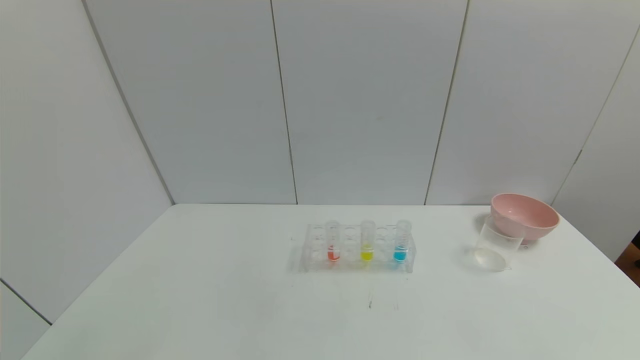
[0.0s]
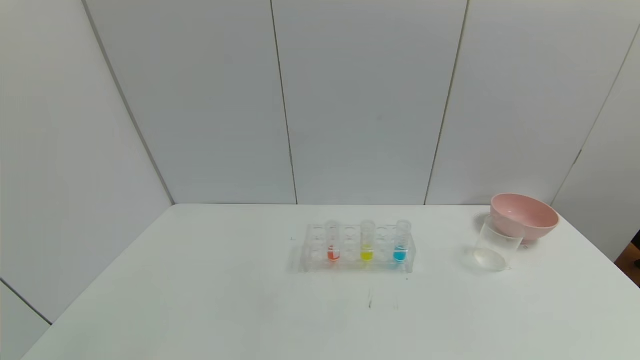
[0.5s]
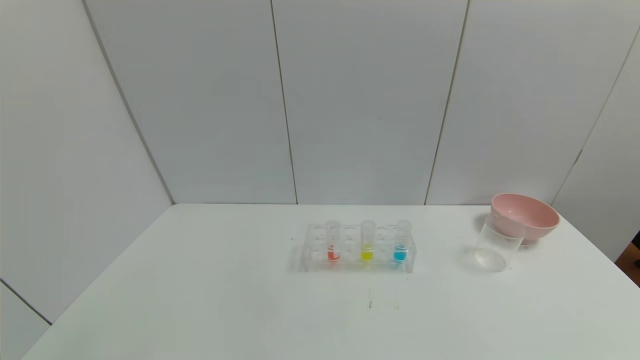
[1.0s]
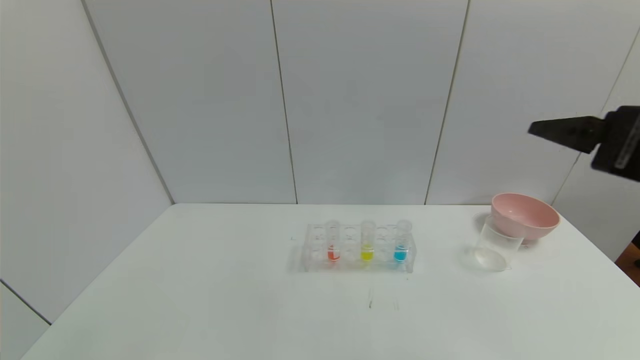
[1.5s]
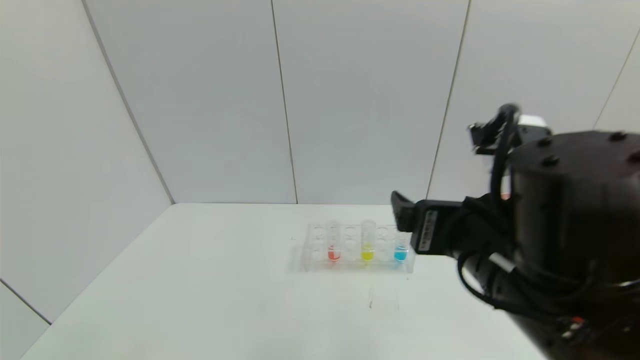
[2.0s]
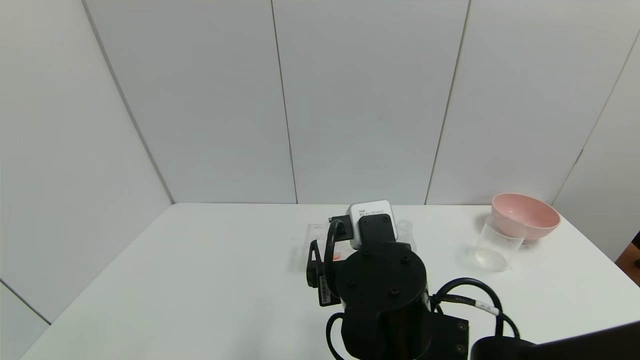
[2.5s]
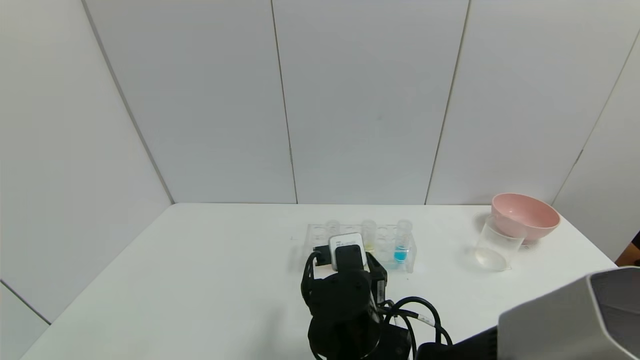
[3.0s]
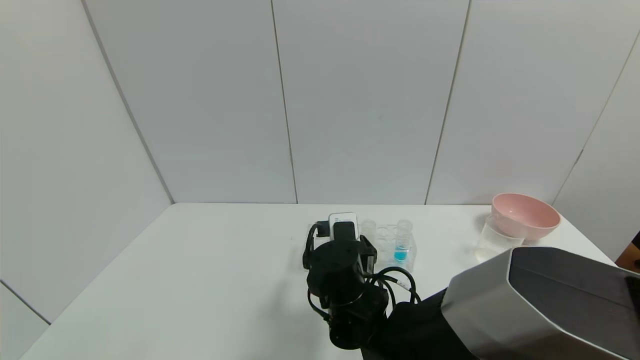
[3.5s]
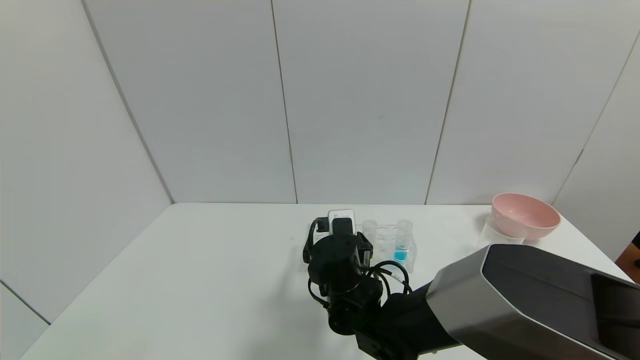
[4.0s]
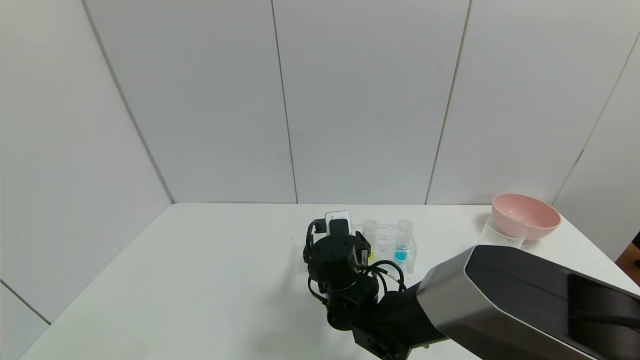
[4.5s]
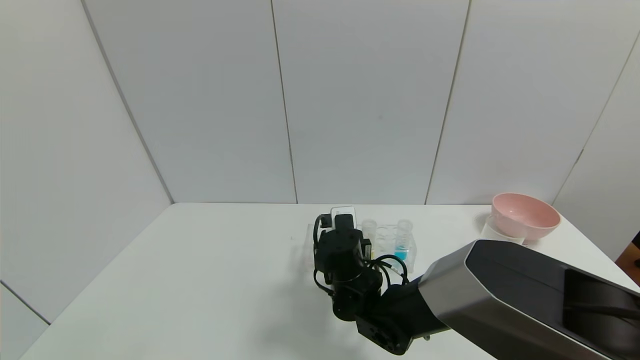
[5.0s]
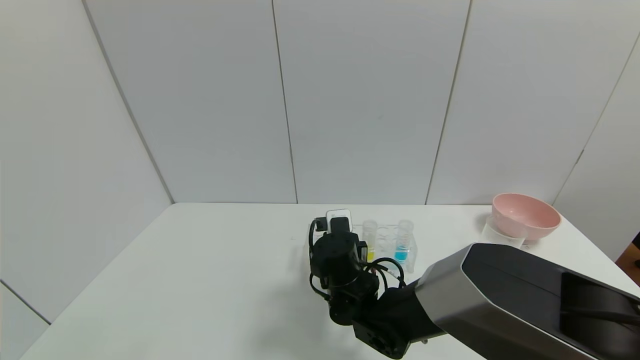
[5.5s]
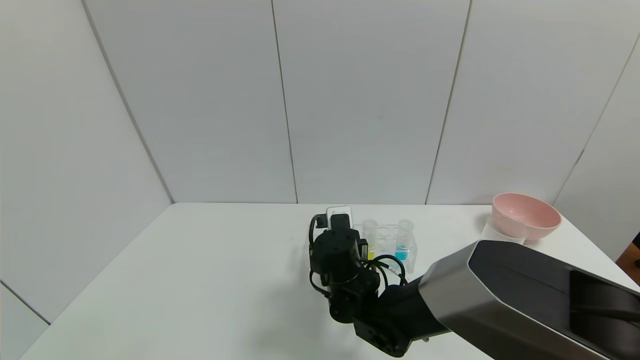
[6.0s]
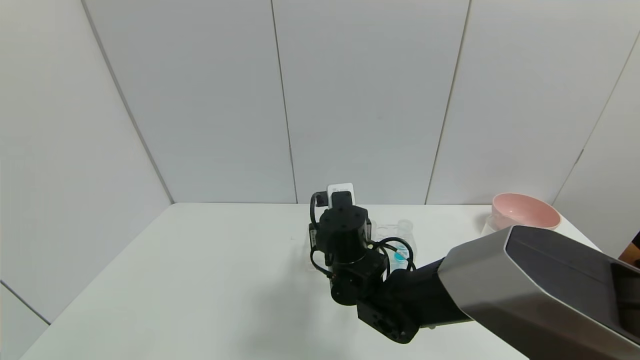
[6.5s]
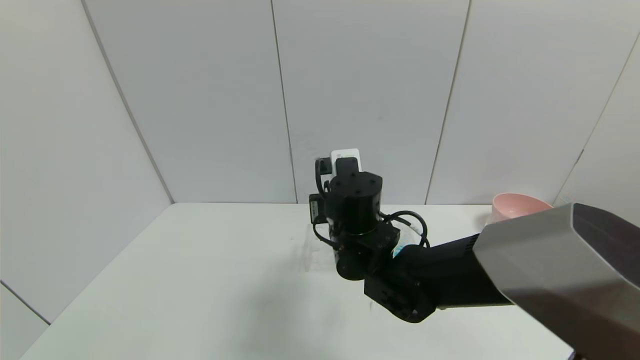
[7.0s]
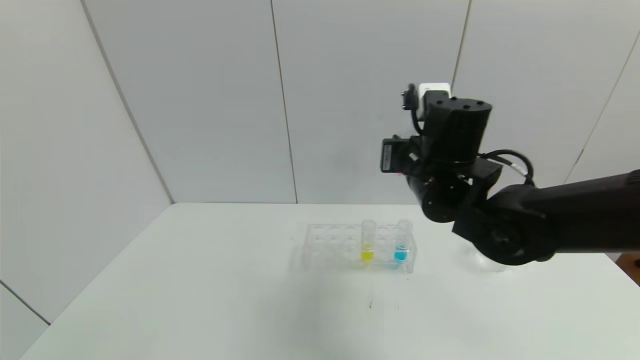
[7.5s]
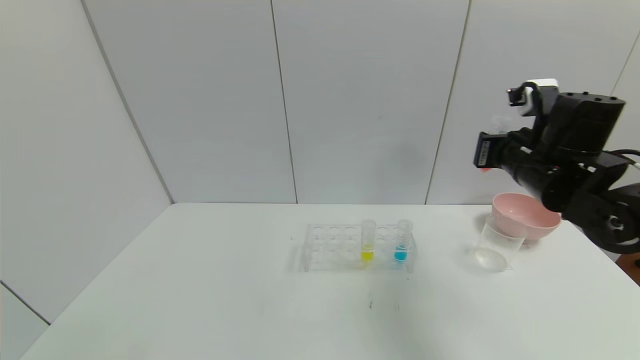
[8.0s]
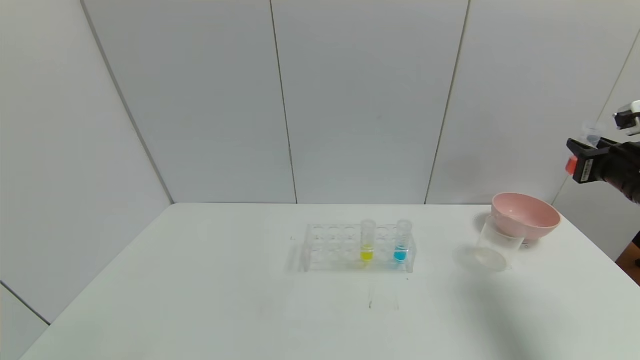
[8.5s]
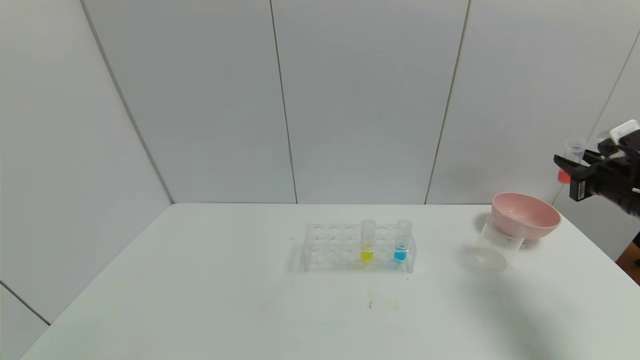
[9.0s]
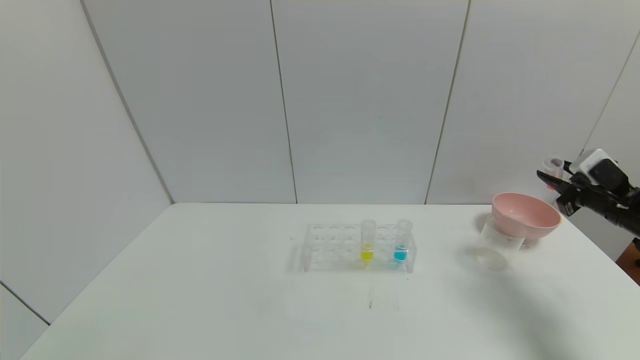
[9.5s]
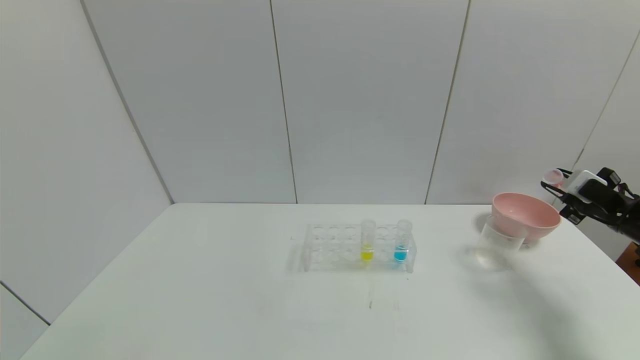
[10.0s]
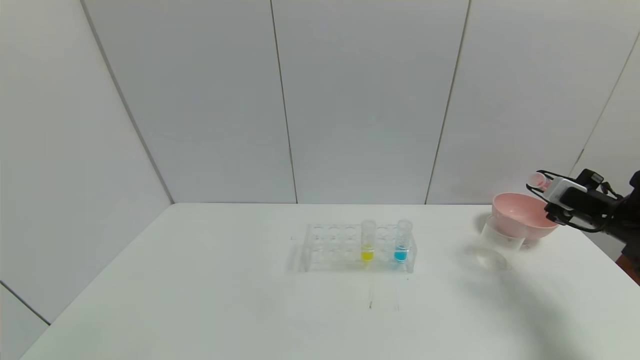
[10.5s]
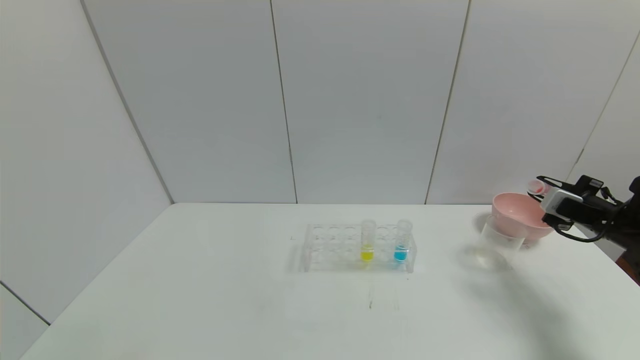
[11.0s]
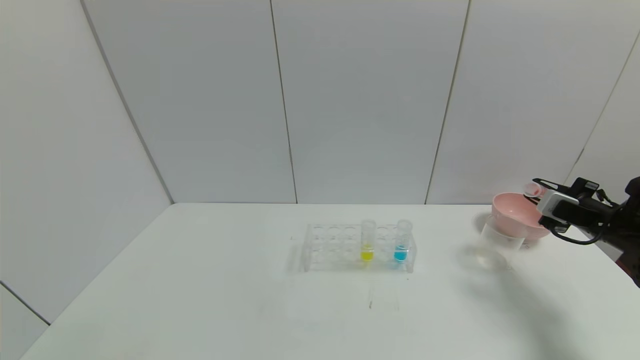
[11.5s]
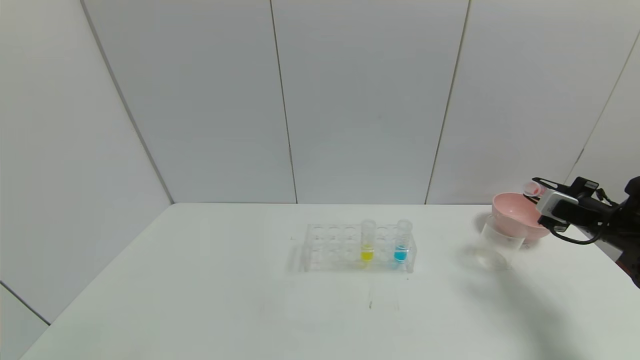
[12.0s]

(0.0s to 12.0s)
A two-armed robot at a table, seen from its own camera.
Task of the whole recording: pick up the test tube with yellow pigment and the test tube with red pigment by grippers and pour them into the beaker.
Step, 0.0s - 7.5s: Pick up the test tube containing the red reagent with right gripper.
0.0s - 2.0s: The right gripper goes roughly 35 cm to the left, forward and upward.
2.0s - 4.0s: The right gripper moves downward, forward and to the left, approximately 25 cm.
4.0s - 6.0s: The right gripper closes.
6.0s - 8.0s: The right gripper shifts about 30 cm to the right and upward.
8.0s - 10.0s: The right gripper moves to the right and downward, some 20 cm.
10.0s - 12.0s: The grippers stay close to where they were, moving slightly.

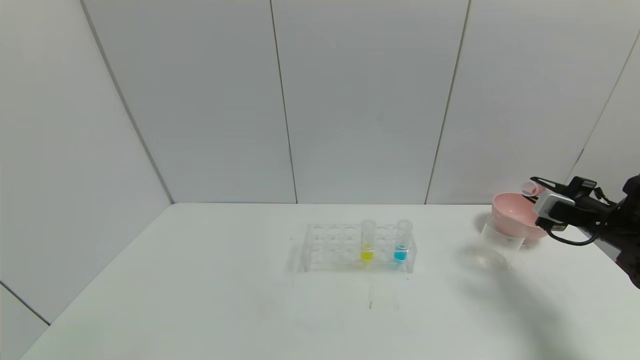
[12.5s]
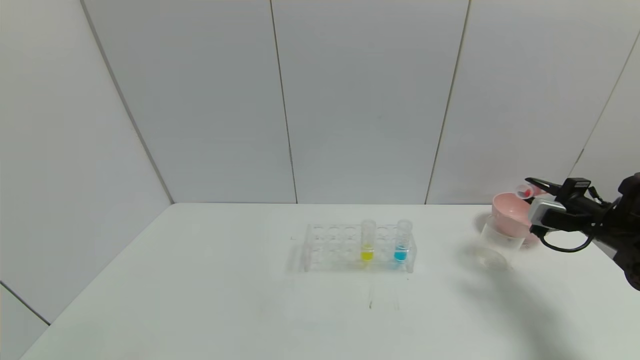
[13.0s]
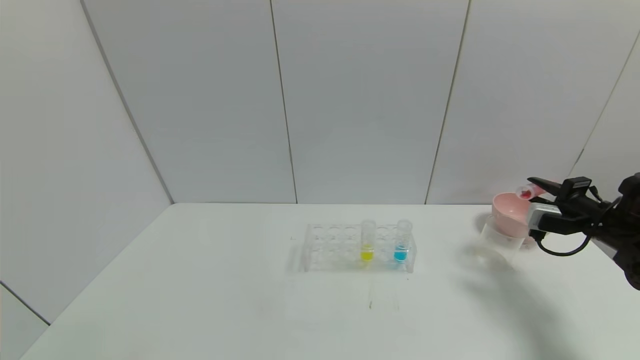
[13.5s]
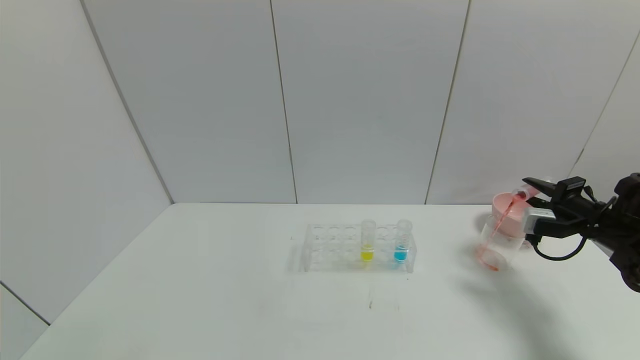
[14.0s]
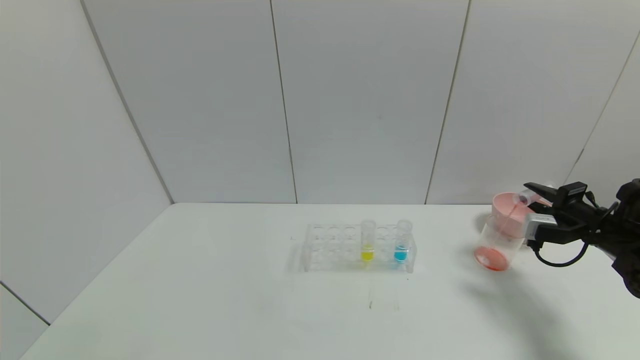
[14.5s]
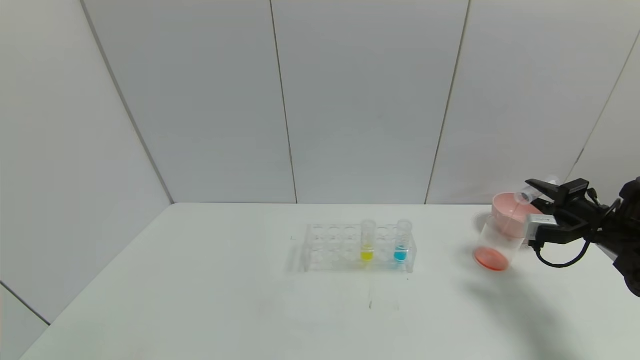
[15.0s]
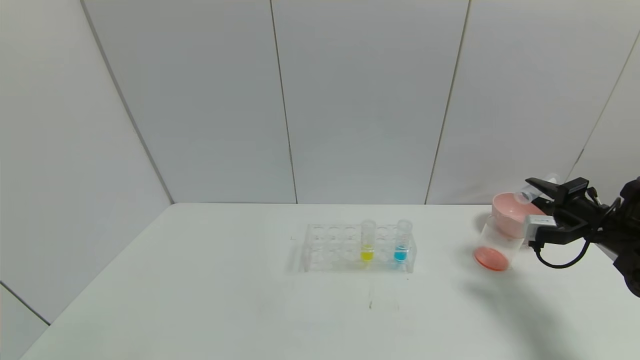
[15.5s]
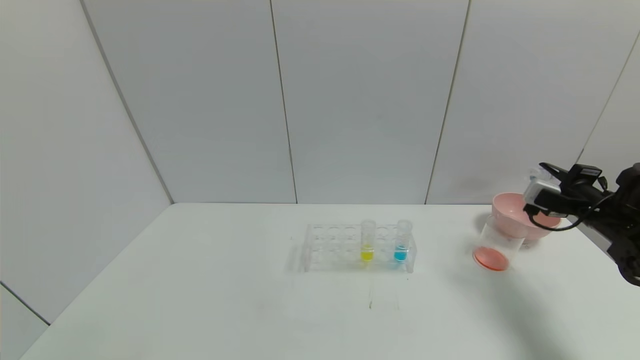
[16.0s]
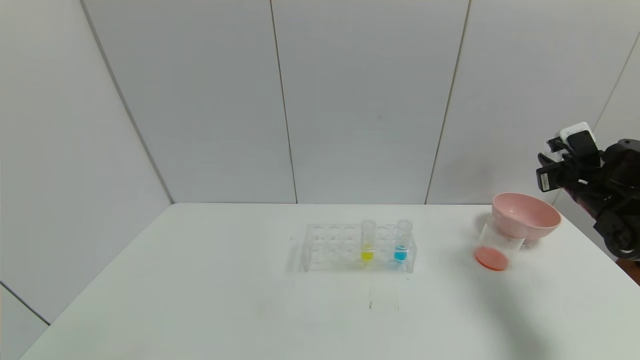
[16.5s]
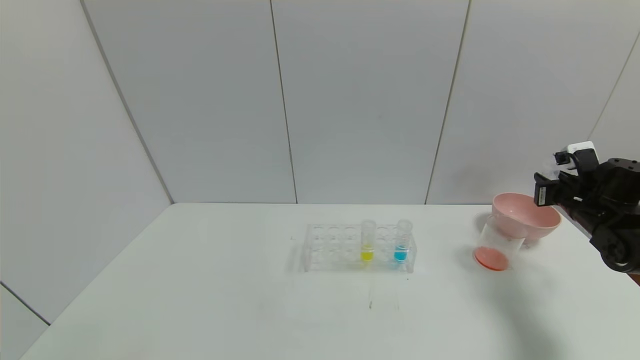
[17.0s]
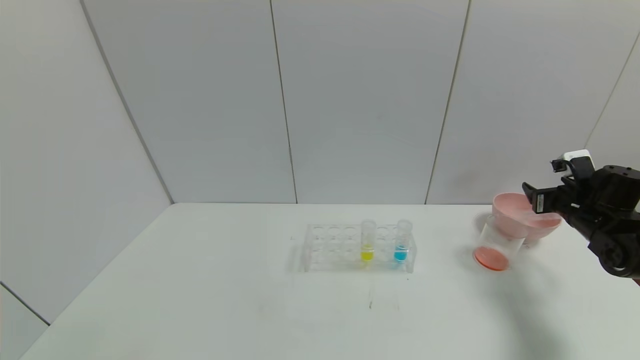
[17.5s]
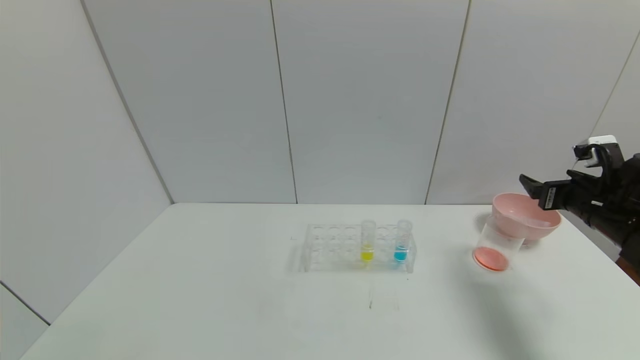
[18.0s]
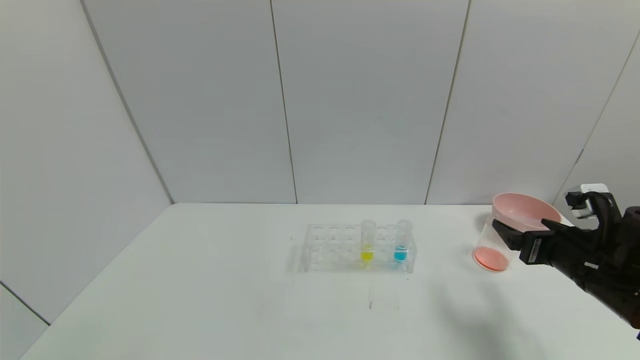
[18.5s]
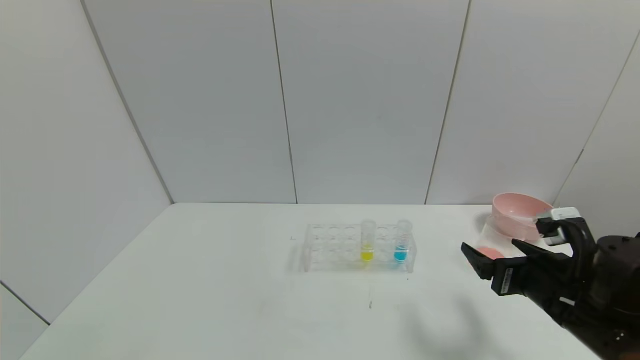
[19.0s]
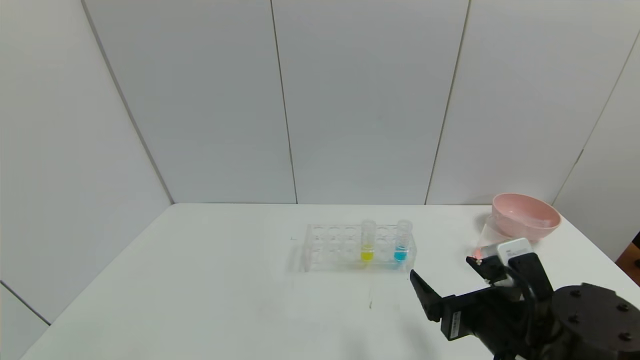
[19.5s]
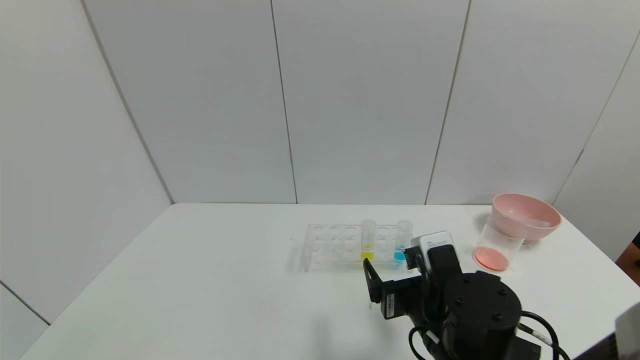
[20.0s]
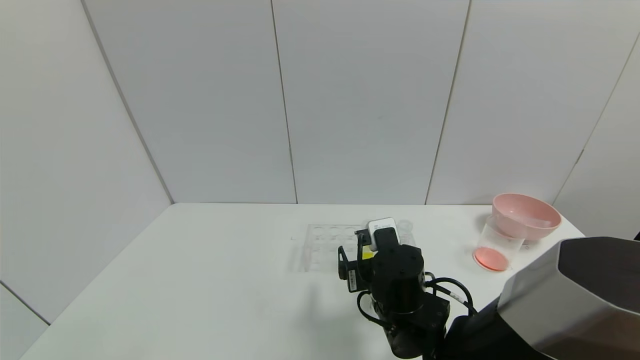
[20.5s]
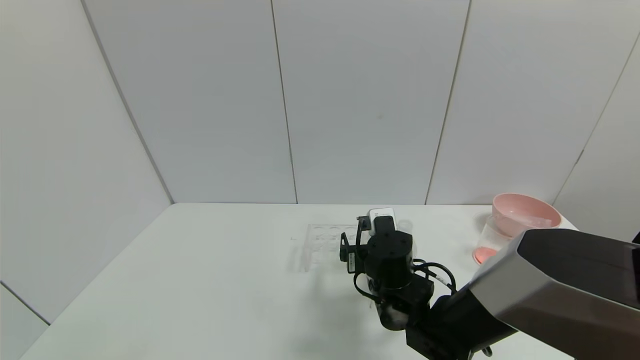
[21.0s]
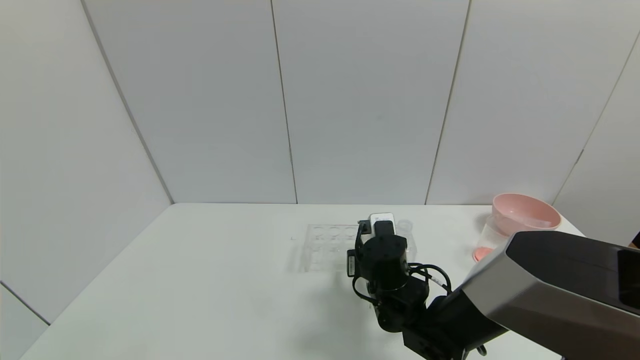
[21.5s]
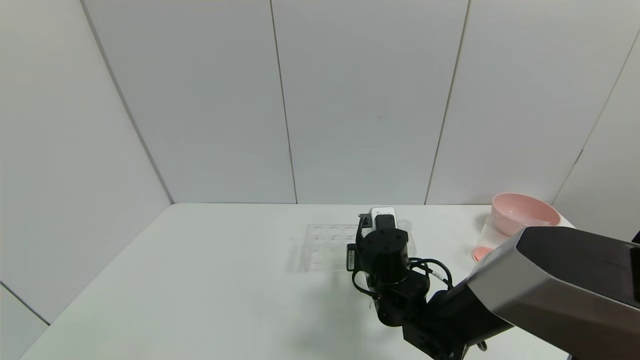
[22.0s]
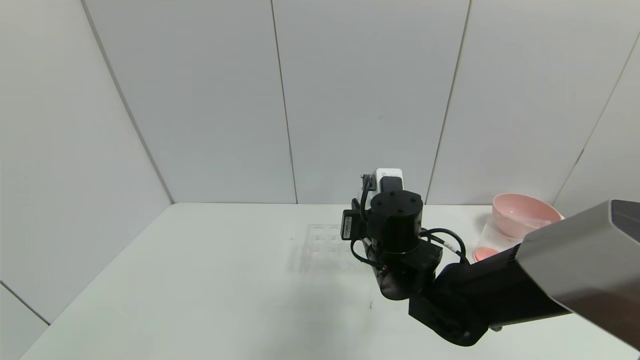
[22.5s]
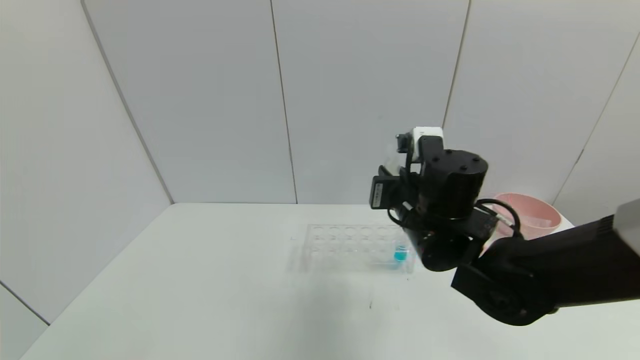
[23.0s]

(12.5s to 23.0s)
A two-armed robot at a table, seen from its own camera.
Task of the whole recording: pick up the test tube with yellow pigment and the test tube with red pigment by grippers and pour them into the beaker.
Step, 12.5s - 16.0s: Pour the red reagent into the graduated cylinder with right gripper.
Step, 16.5s - 18.0s: Place the test tube into the bowl with right gripper.
14.5s - 16.5s: The right gripper changes place by about 5 cm.
16.5s - 19.0s: The right gripper shifts about 25 cm backward and to the left, and opens.
19.0s - 21.0s: The right gripper shifts about 20 cm to the left and forward.
21.0s - 23.0s: The right gripper goes about 15 cm upward, and closes.
